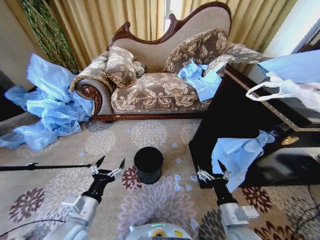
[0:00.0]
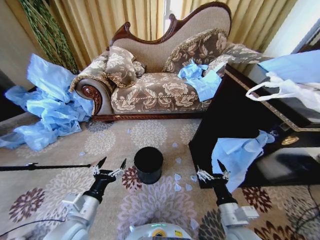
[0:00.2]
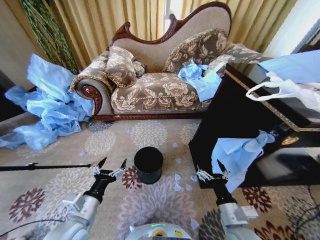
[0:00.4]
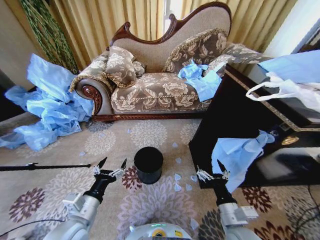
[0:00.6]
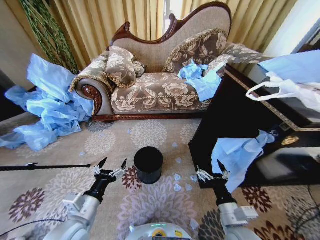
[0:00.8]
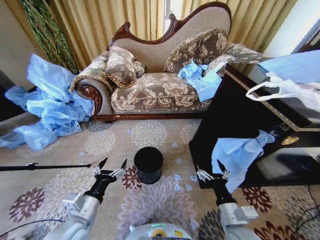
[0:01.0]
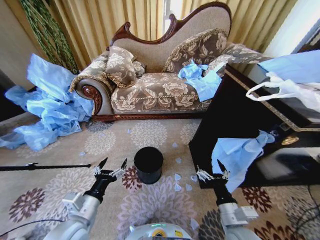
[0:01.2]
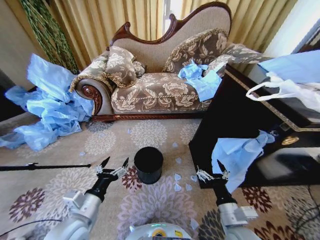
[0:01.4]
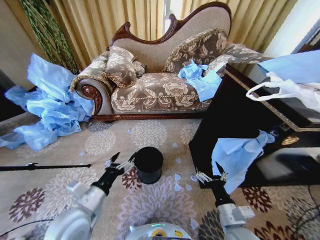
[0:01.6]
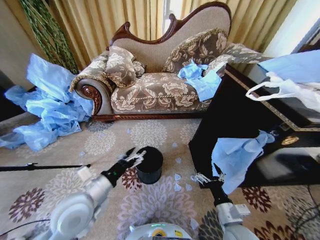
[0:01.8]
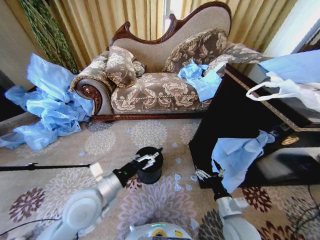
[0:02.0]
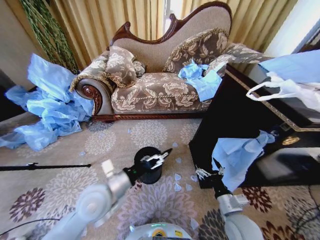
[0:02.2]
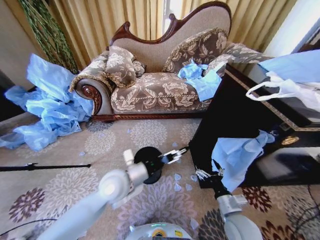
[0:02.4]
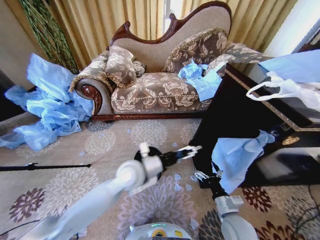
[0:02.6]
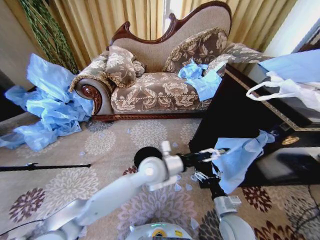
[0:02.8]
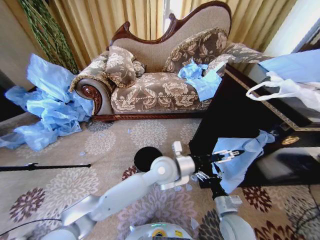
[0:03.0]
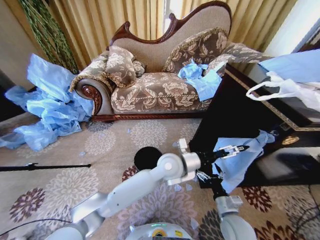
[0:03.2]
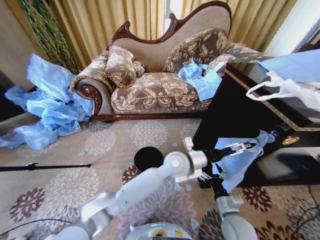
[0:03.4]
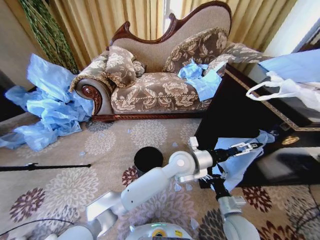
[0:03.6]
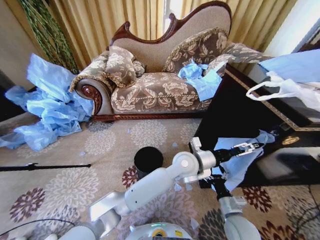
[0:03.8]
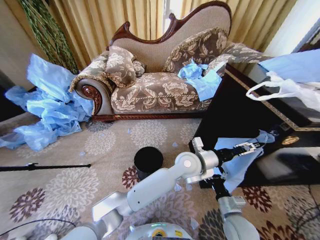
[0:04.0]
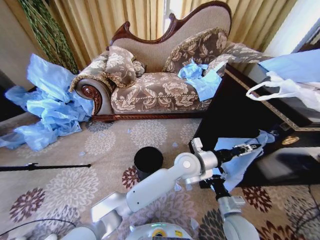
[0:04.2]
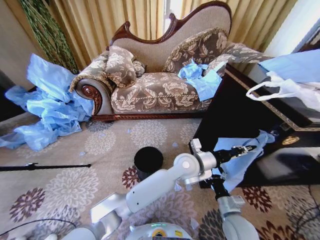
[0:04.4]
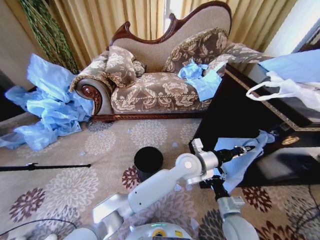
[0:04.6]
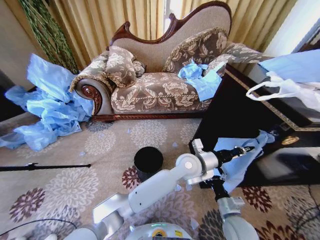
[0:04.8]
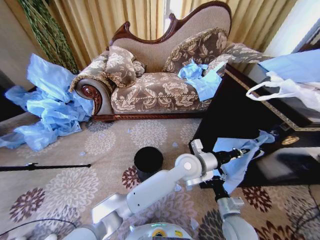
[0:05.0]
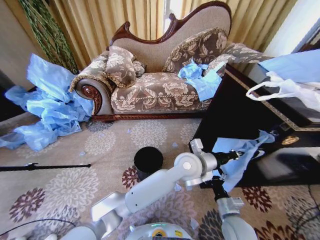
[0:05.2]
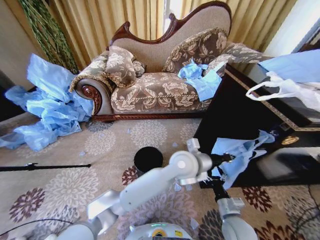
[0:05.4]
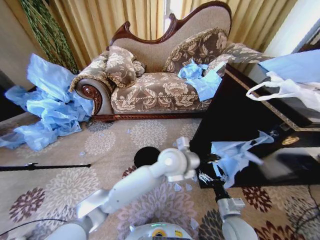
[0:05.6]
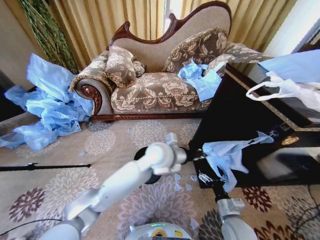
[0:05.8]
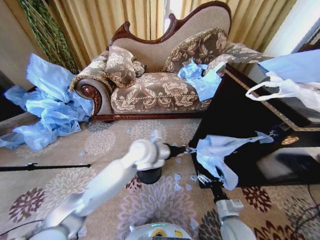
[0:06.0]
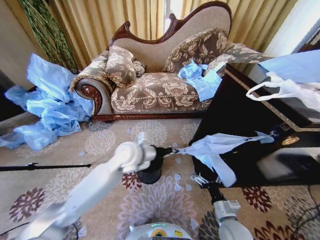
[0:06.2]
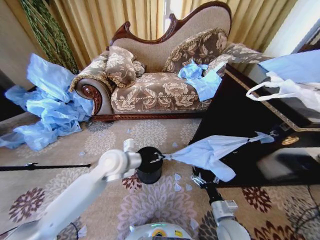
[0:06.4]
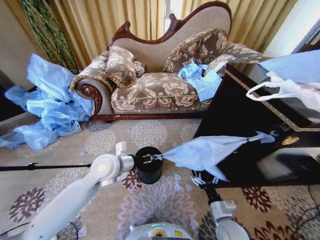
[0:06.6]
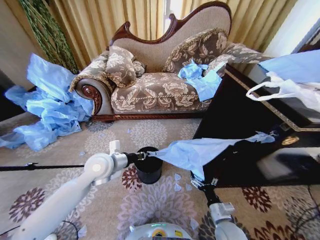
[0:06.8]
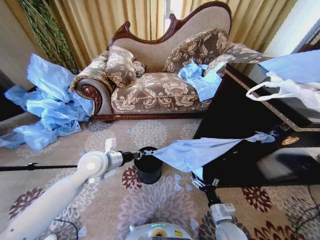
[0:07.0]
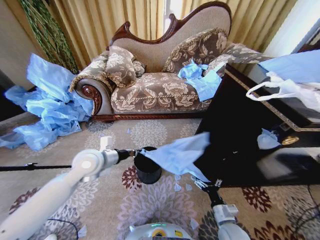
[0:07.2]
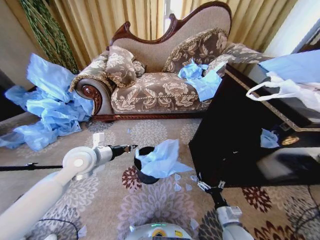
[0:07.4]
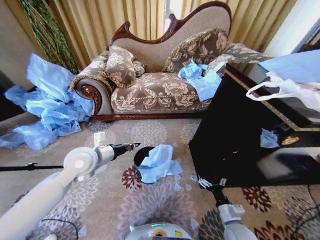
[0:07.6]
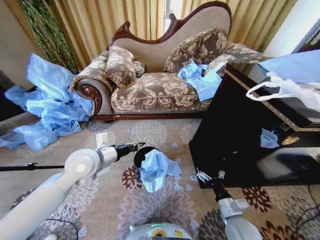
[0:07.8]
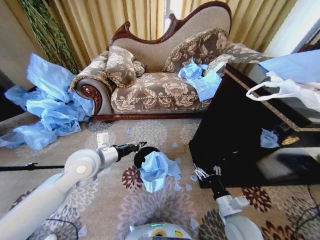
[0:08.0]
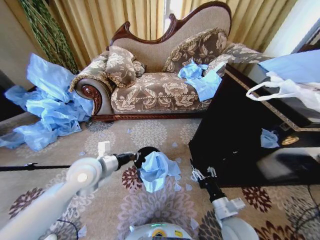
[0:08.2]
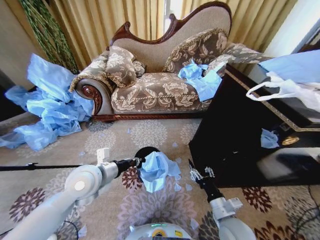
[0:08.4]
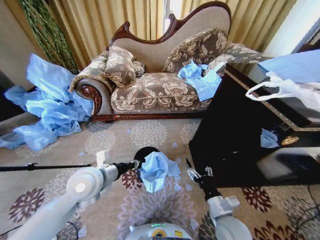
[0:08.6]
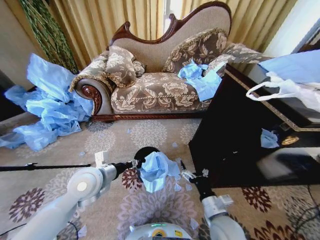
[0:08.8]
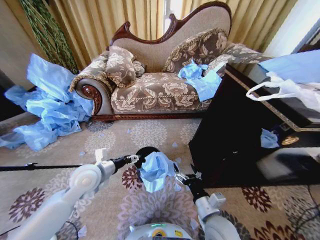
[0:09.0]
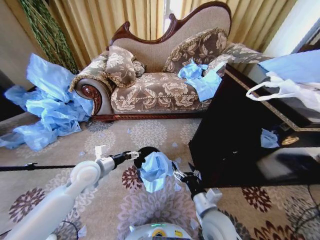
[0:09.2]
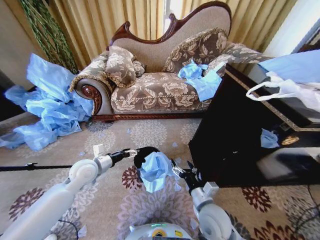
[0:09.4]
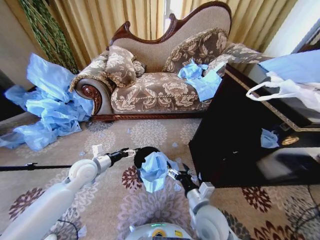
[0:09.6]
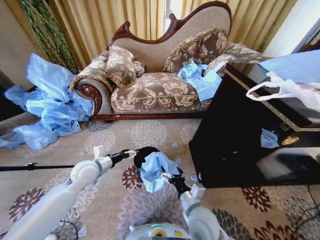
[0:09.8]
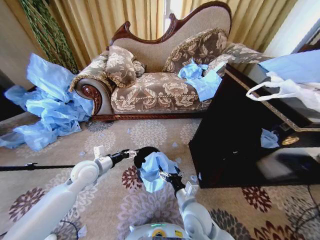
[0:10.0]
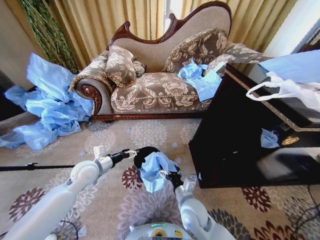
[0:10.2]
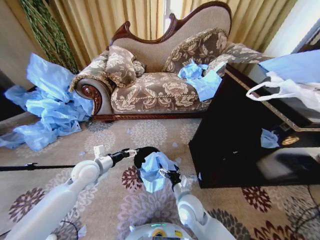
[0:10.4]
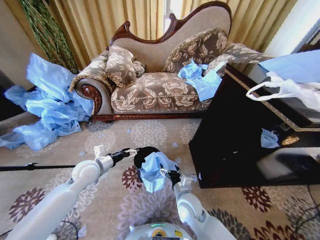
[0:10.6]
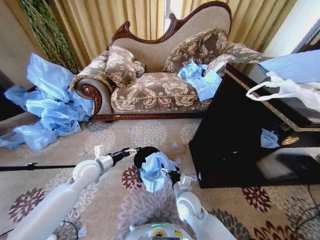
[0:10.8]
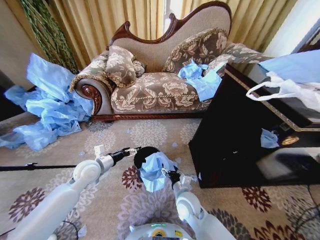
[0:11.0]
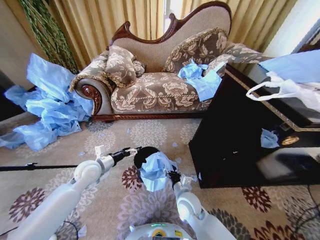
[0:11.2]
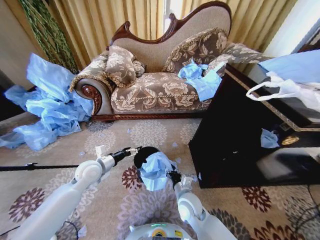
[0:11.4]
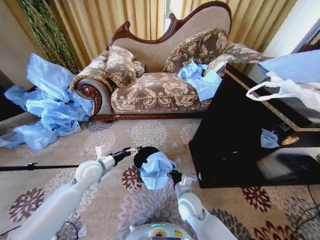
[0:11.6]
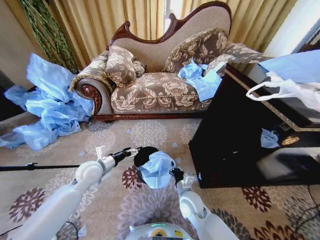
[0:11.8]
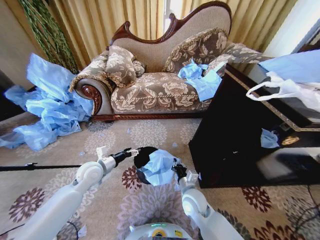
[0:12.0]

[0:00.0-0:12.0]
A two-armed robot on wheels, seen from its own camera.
Task of the whole recording: Place a garbage bag over the trash bin.
0:01.6 to 0:03.0: The left gripper moves to the right and forward, about 30 cm; the right gripper heads downward, covering approximately 5 cm.
0:03.0 to 0:04.4: The left gripper moves to the right, roughly 10 cm, and closes its fingers.
0:04.4 to 0:06.0: The left gripper is displaced to the left by some 15 cm.
0:06.0 to 0:07.6: The left gripper moves to the left, roughly 20 cm.
0:07.6 to 0:09.0: The left gripper moves downward, approximately 5 cm, and opens, while the right gripper travels to the left and upward by some 15 cm, and closes and opens again.
0:09.0 to 0:10.4: The left gripper changes place by about 5 cm, while the right gripper heads to the left and forward, covering roughly 10 cm.
0:10.4 to 0:12.0: The right gripper closes up.

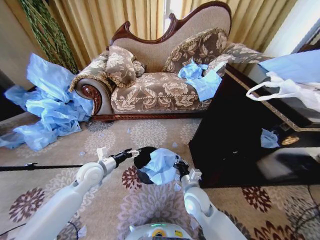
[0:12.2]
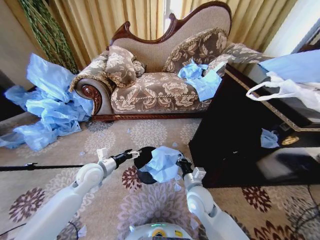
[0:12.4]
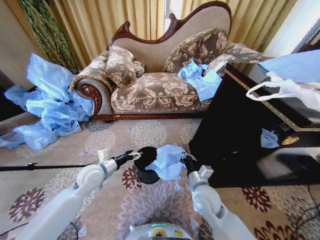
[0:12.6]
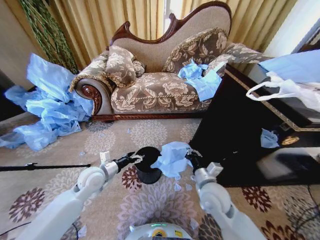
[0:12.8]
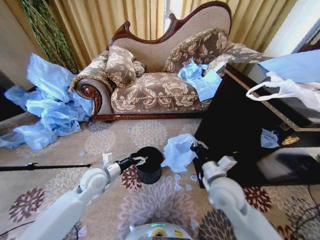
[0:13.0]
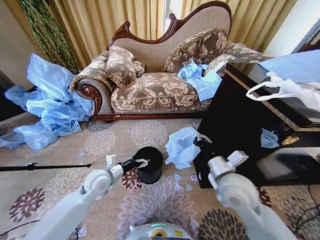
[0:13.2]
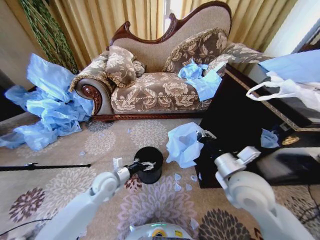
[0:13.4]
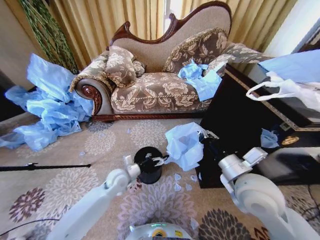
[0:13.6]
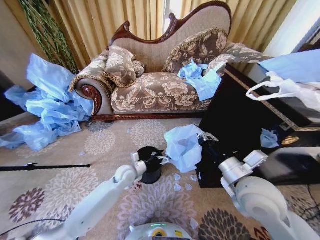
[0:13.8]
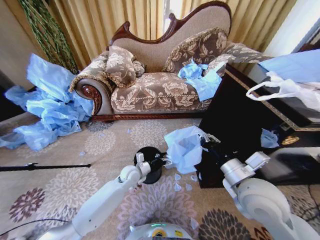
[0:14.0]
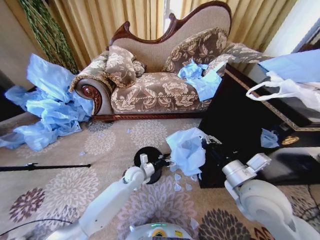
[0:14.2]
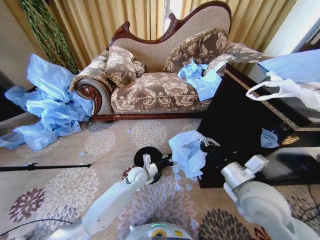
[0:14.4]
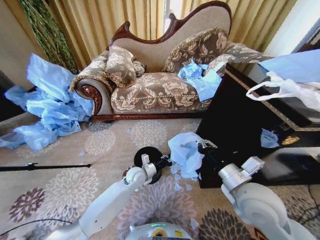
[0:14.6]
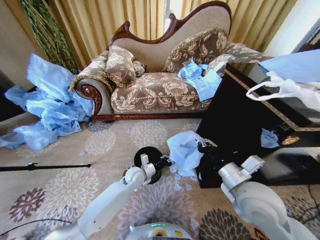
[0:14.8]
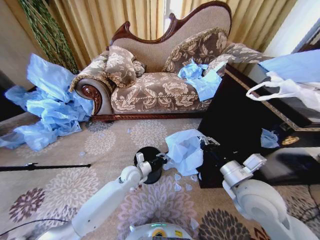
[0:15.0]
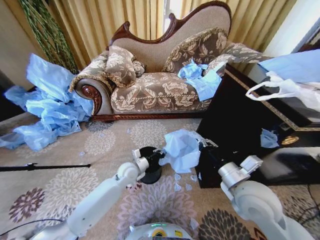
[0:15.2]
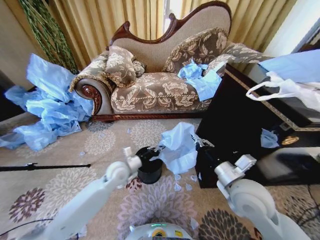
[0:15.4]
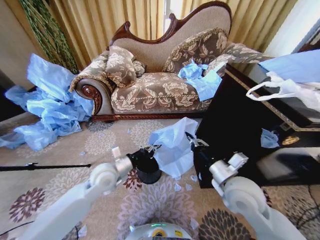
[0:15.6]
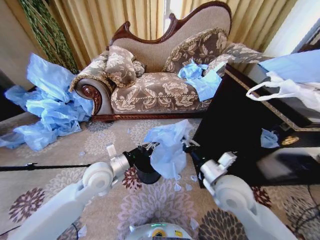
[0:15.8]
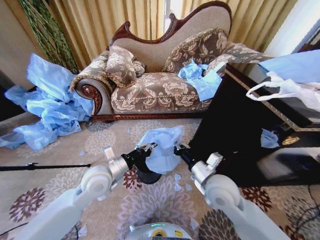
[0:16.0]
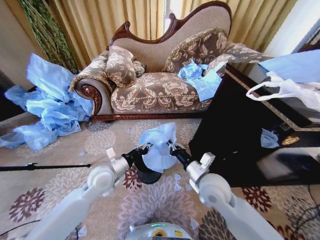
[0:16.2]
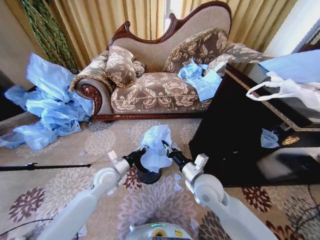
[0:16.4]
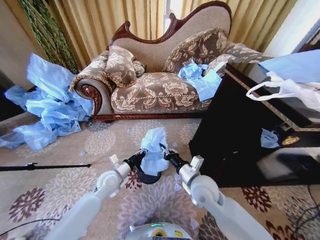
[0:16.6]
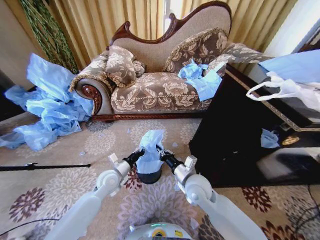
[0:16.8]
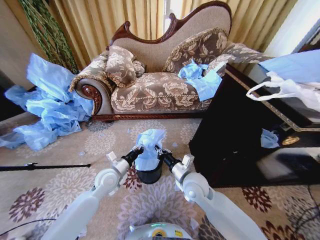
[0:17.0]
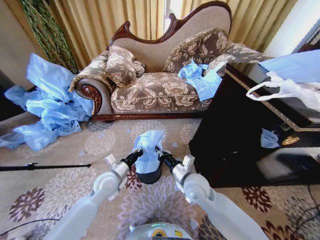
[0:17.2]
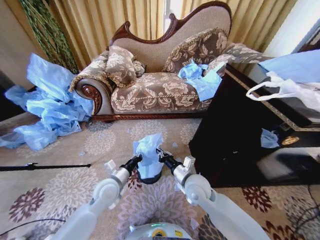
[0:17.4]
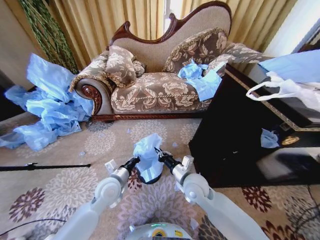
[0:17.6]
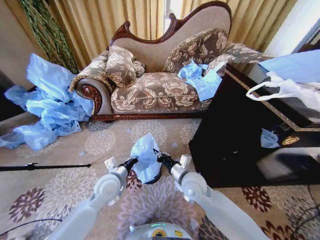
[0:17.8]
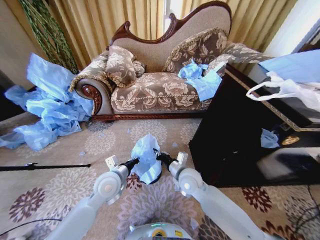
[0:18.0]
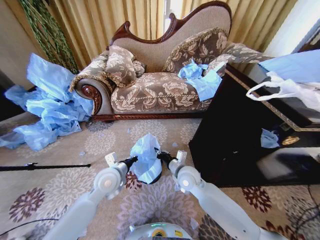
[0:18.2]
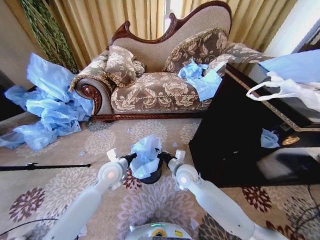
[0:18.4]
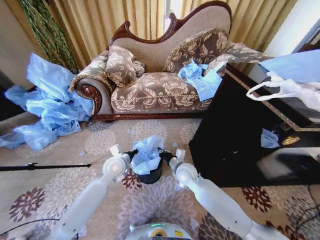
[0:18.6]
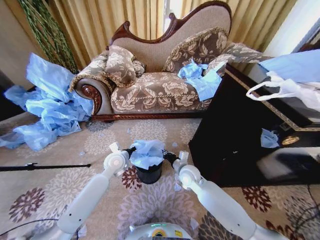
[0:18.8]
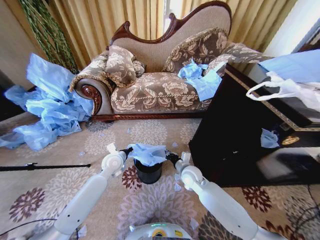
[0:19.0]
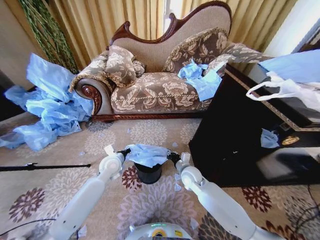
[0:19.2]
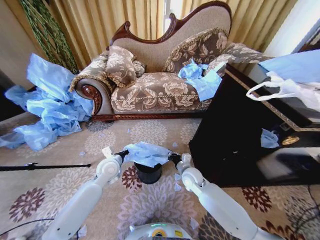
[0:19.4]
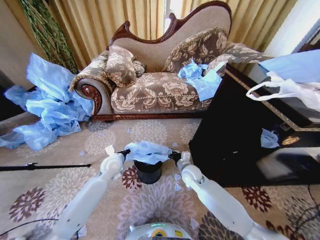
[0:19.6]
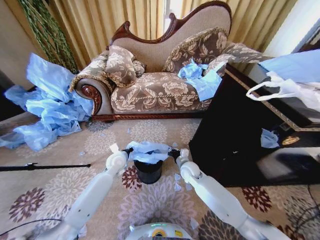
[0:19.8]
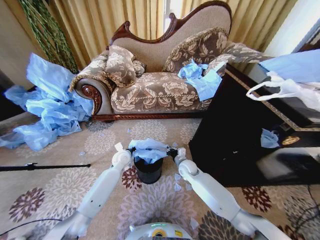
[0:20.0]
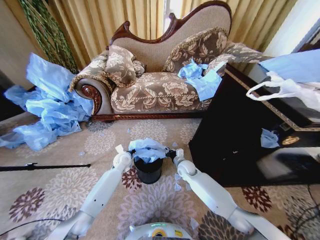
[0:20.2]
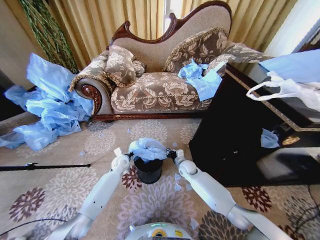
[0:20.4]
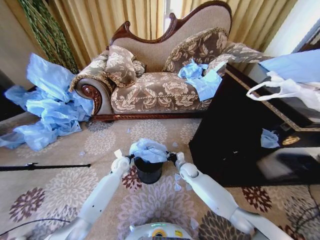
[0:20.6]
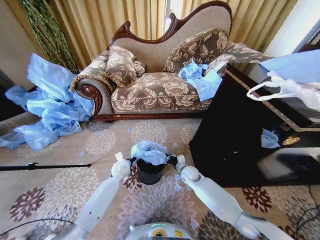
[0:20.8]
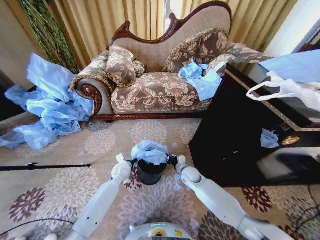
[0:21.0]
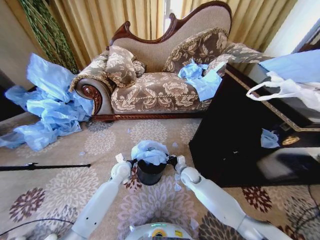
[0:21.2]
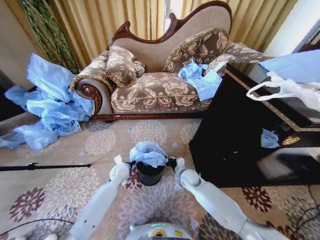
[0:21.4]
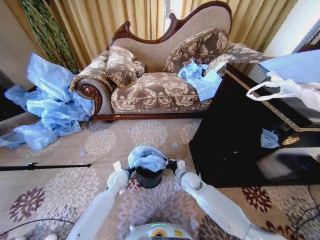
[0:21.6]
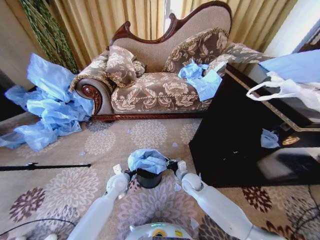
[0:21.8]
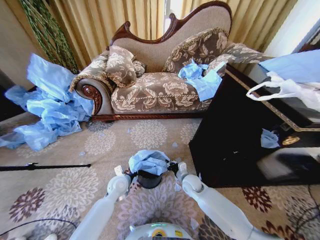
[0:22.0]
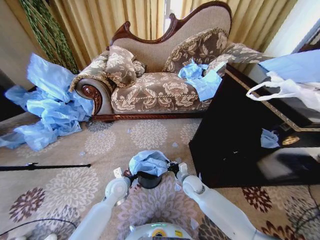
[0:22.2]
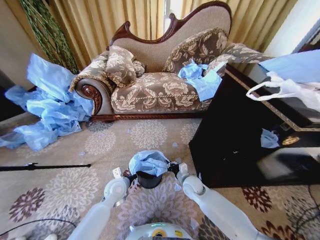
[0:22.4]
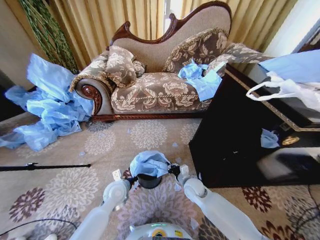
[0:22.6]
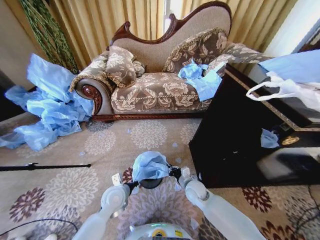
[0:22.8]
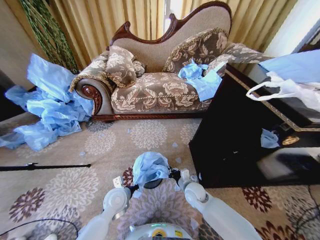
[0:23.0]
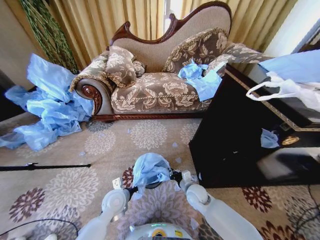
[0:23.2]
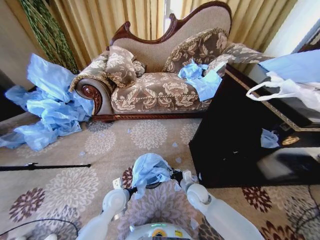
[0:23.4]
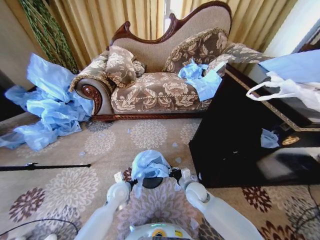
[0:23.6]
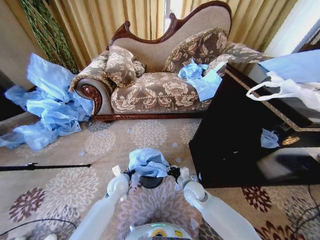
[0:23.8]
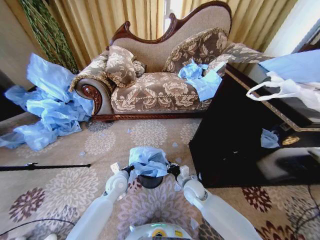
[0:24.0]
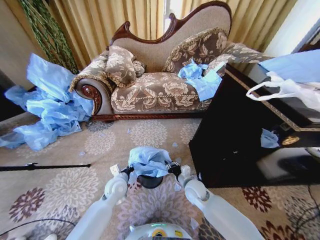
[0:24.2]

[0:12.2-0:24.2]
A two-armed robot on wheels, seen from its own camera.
Task of the whole recording: Place a garbage bag over the trash bin.
0:12.2 to 0:13.8: The left gripper goes approximately 15 cm to the right and downward. The right gripper goes about 20 cm upward and to the right.
0:13.8 to 0:15.2: The left gripper closes up.
0:15.2 to 0:16.6: The left gripper travels to the left by some 5 cm, and moves approximately 15 cm upward and comes back, while the right gripper shifts roughly 15 cm to the left, downward and forward.
0:16.6 to 0:18.2: The left gripper heads upward, covering some 5 cm; the right gripper moves forward, roughly 5 cm.
0:18.2 to 0:19.8: The left gripper shifts approximately 10 cm forward and downward, while the right gripper moves downward and forward, some 10 cm.
0:19.8 to 0:21.2: The grippers both shift downward by about 5 cm.
0:21.2 to 0:22.6: The left gripper moves backward, approximately 10 cm, while the right gripper is displaced backward by about 5 cm.
0:22.6 to 0:24.2: The grippers stay close to where they were, moving slightly.
